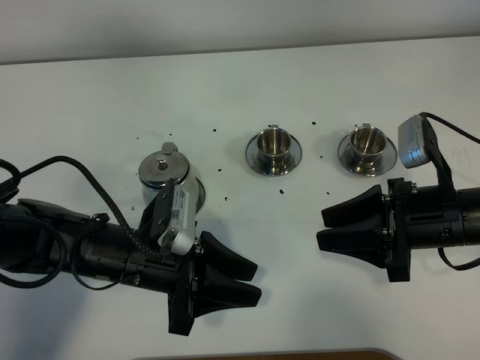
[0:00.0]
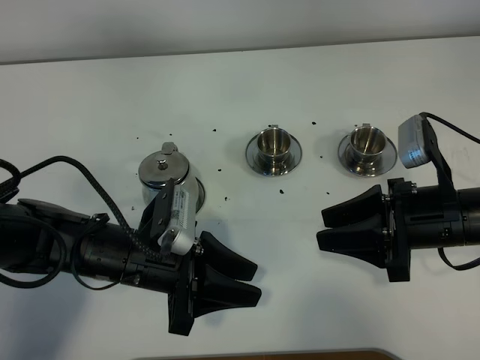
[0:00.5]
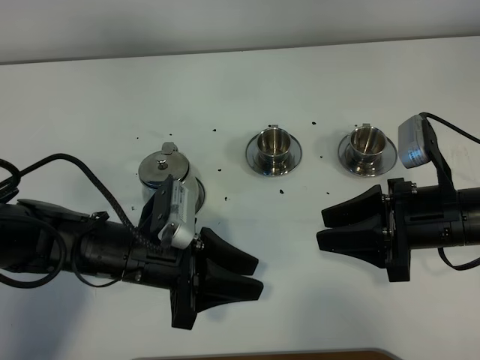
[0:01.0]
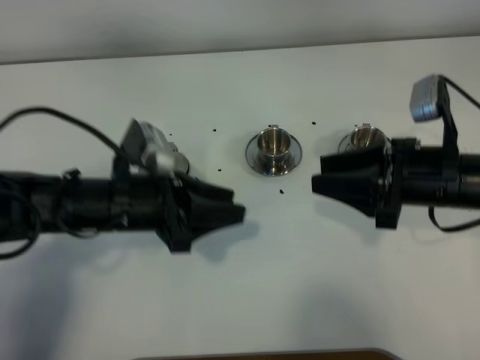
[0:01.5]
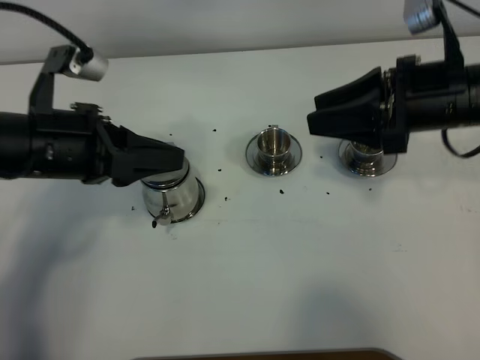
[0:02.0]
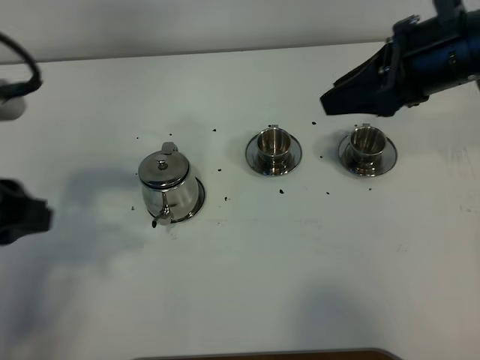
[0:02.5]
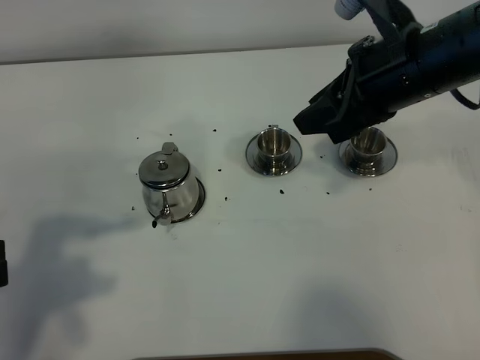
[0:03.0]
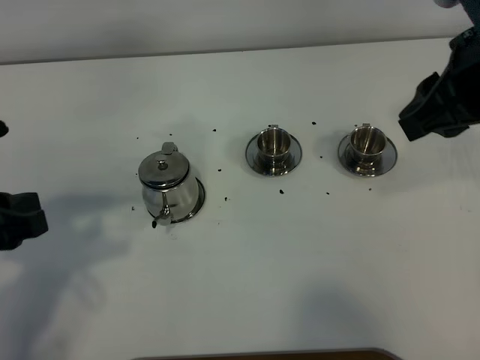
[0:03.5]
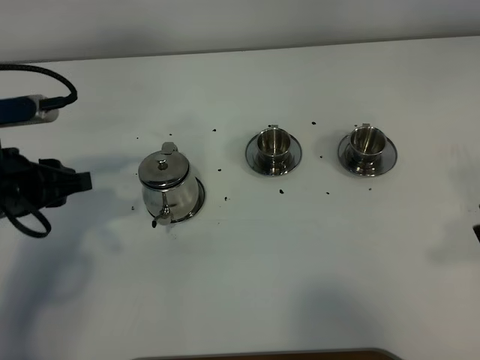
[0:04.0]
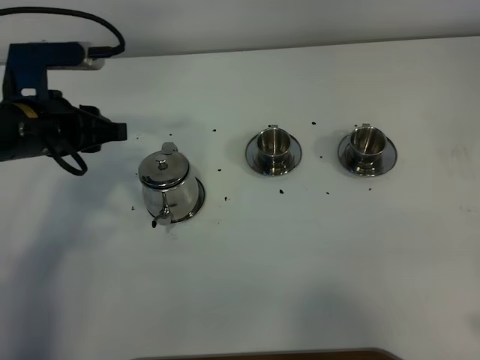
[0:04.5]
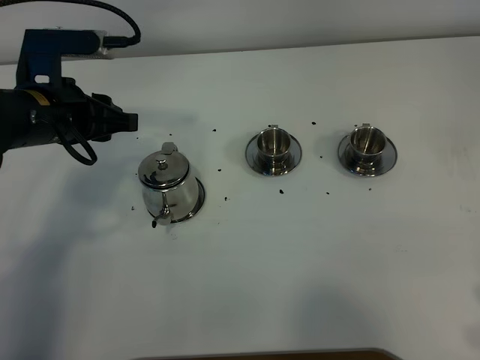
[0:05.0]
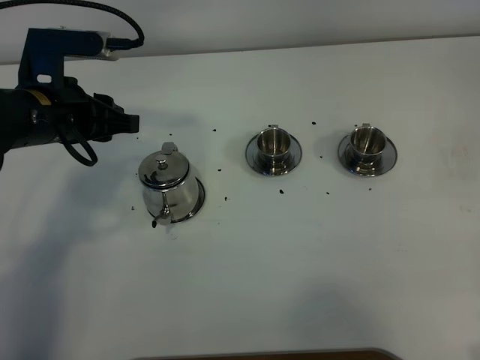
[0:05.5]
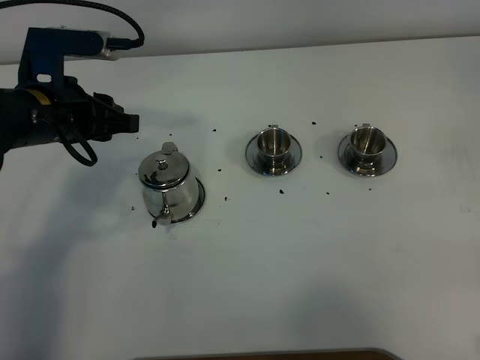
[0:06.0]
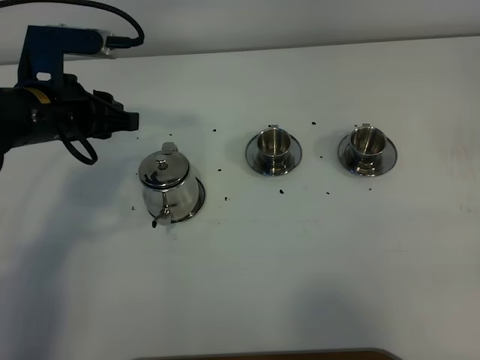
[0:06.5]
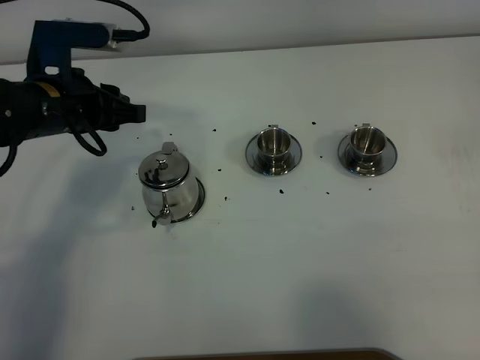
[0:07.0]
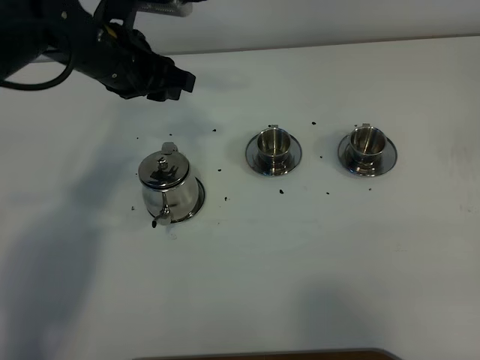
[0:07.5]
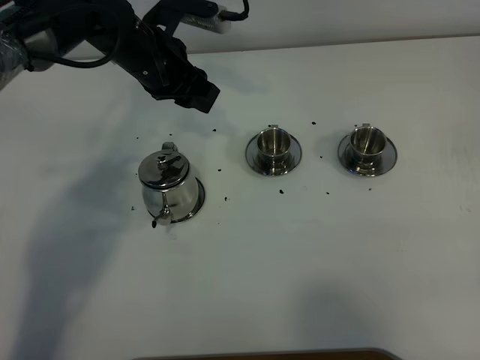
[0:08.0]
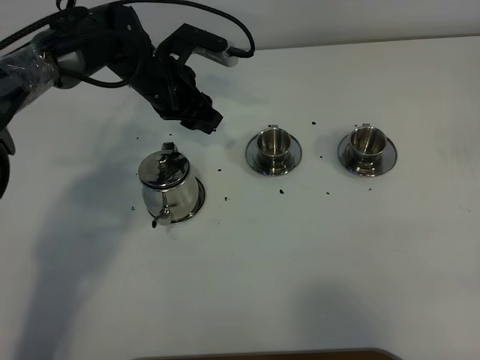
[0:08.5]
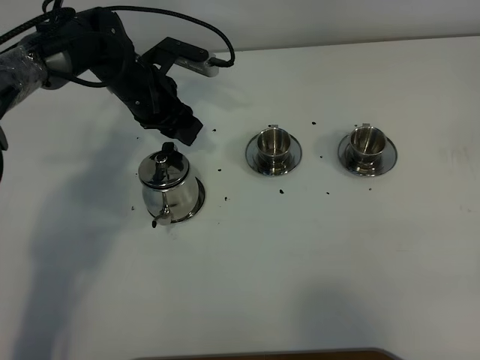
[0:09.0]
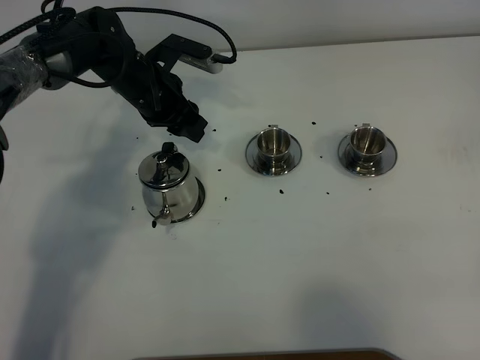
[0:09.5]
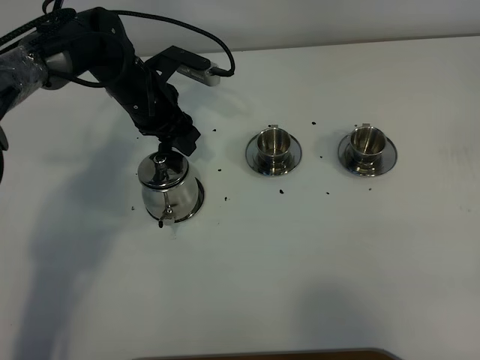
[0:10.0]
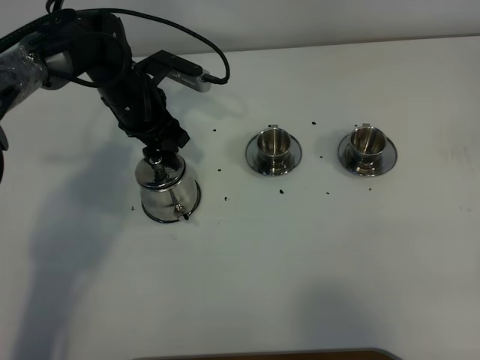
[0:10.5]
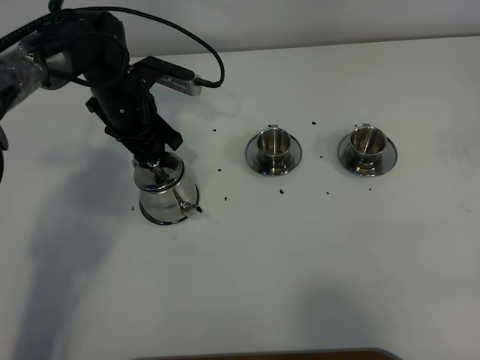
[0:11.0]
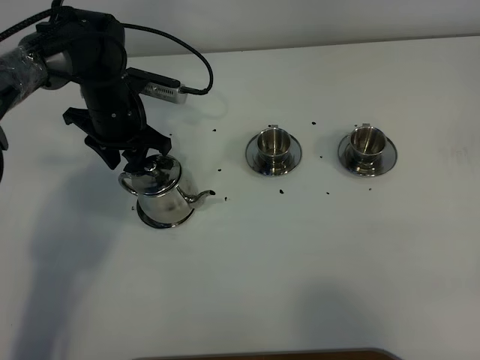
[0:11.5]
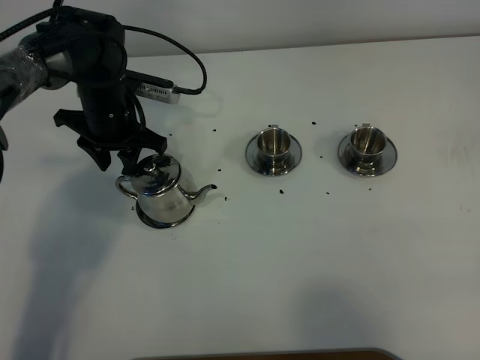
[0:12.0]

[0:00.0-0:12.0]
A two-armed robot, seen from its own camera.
Task of the whole recording: grasp the stainless steel teapot and pour the tea into the two stainless steel teacups one by one, put the stainless steel teapot back in its original place.
0:00.0 to 0:02.0: The right gripper travels upward and forward by roughly 15 cm; the left gripper is displaced upward, to the left and forward by approximately 15 cm.
0:02.0 to 0:04.0: The right gripper heads backward and to the right, covering roughly 15 cm. Meanwhile the left gripper heads to the left, covering about 5 cm, and goes backward and returns, approximately 15 cm each way.
0:04.0 to 0:06.0: The right gripper goes approximately 10 cm backward and to the right, while the left gripper travels forward by roughly 5 cm.
0:06.0 to 0:08.0: The left gripper moves forward and to the right, some 15 cm. Meanwhile the right gripper moves backward, some 5 cm.
0:08.0 to 0:10.0: The left gripper moves downward, some 5 cm.

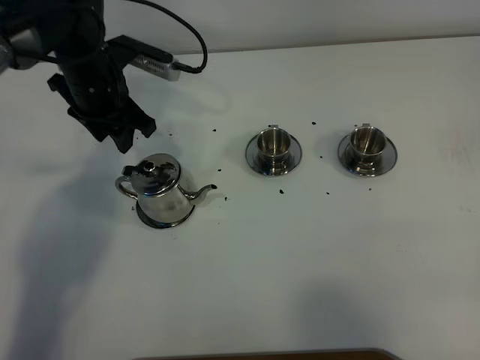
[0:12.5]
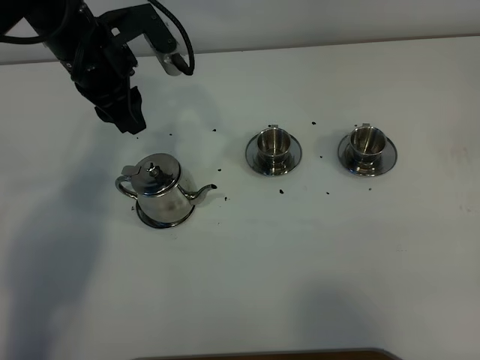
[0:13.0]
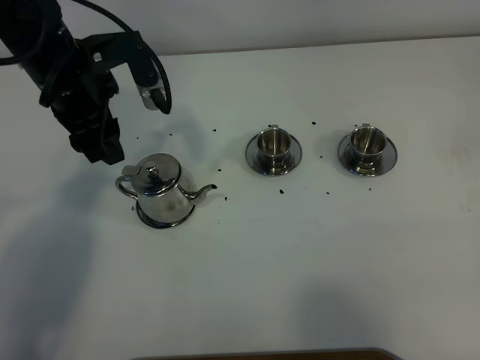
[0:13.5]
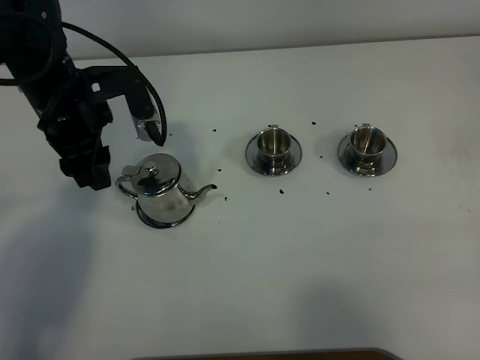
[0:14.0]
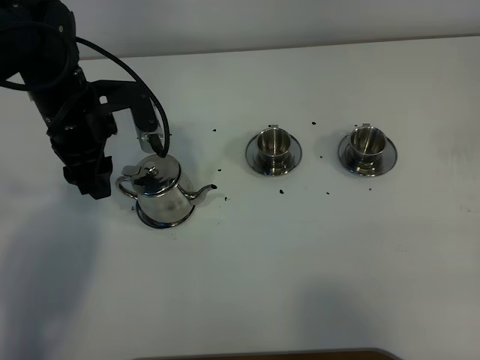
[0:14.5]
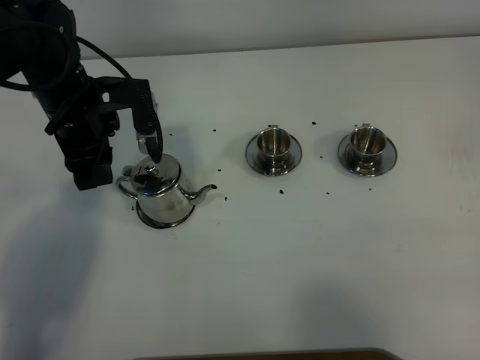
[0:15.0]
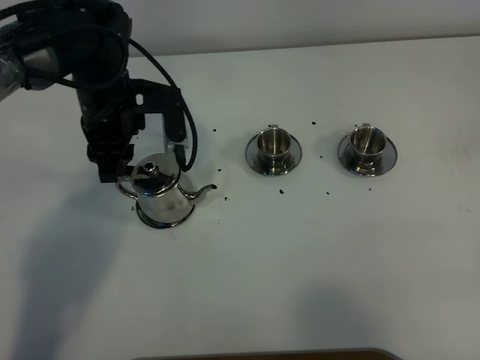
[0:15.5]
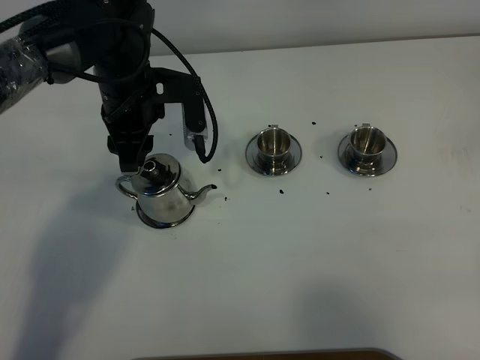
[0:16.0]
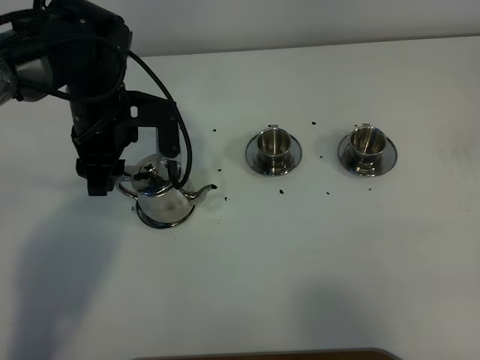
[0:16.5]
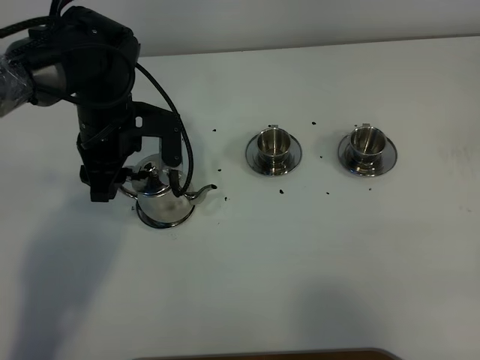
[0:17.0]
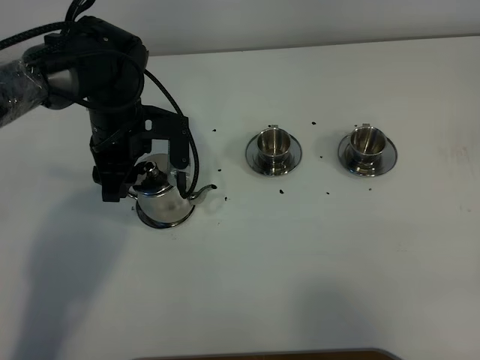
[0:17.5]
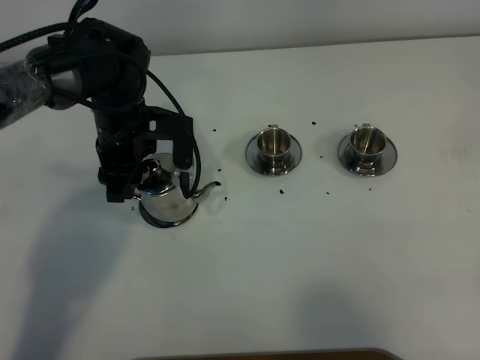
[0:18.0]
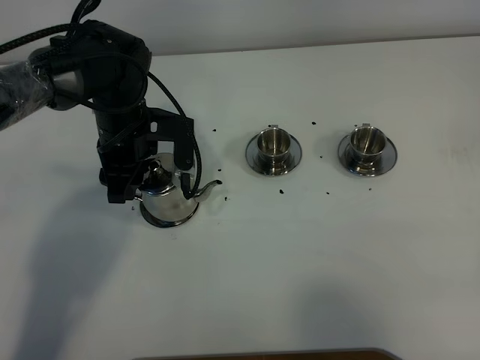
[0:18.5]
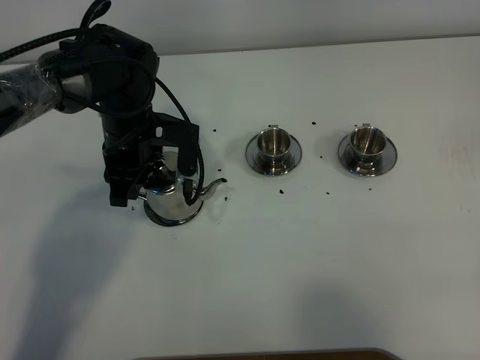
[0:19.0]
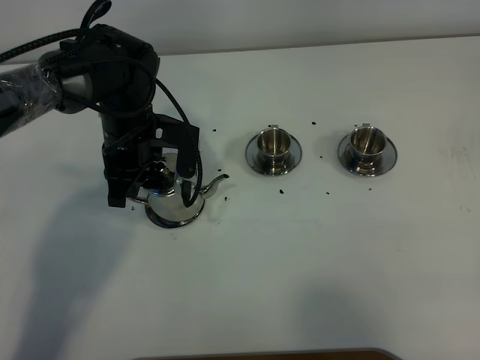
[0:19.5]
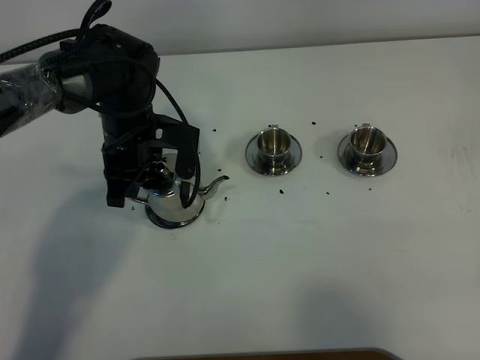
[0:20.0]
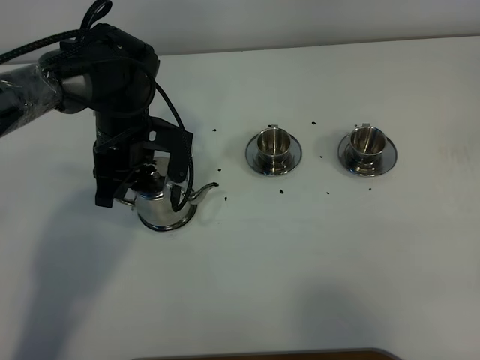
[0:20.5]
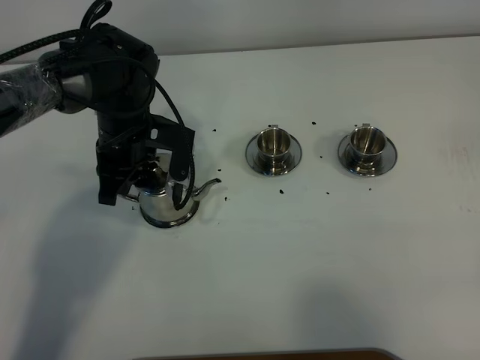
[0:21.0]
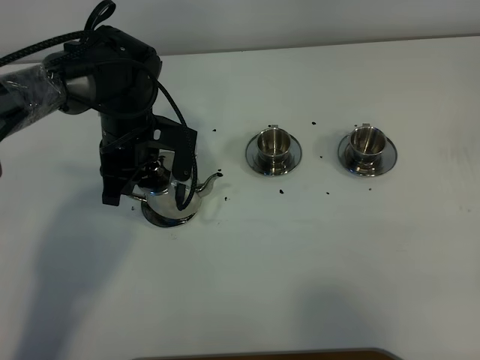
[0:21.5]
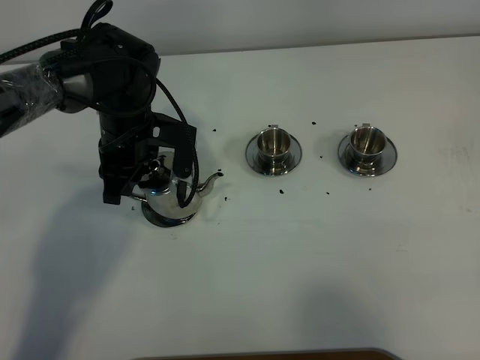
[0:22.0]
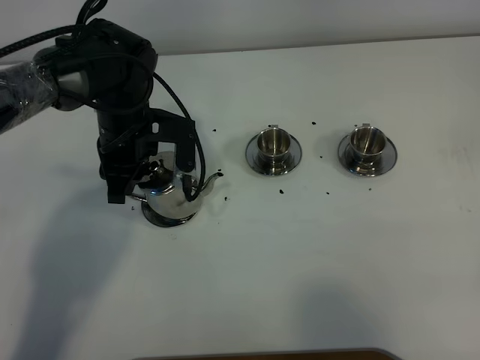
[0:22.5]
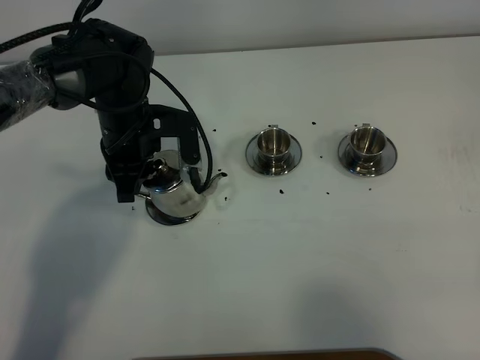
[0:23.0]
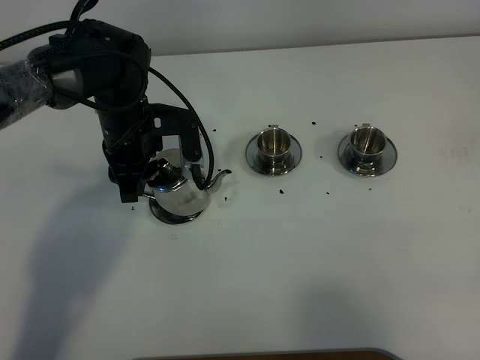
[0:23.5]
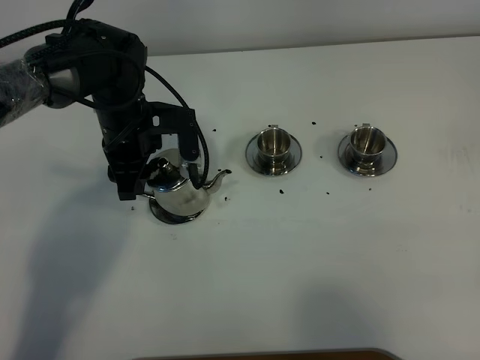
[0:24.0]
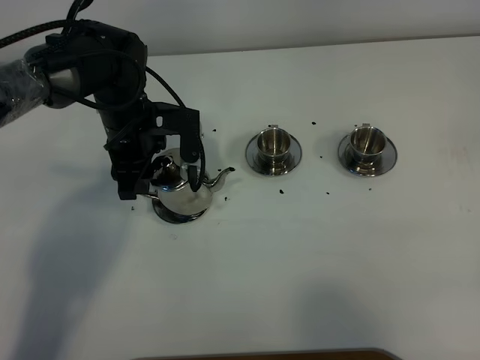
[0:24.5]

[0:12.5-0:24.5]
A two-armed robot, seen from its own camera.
Task of the whole recording: grasp the stainless steel teapot and pour the tea into the two stainless steel teacups one by one, put the stainless steel teapot back in its original place.
0:12.5 to 0:14.5: The left gripper is displaced backward by approximately 5 cm.
0:16.5 to 0:18.5: The grippers stay close to where they were, moving slightly.
0:18.5 to 0:20.5: The left gripper closes its fingers.
0:20.5 to 0:22.5: The left gripper opens its fingers.
0:22.5 to 0:24.5: The left gripper opens its fingers.

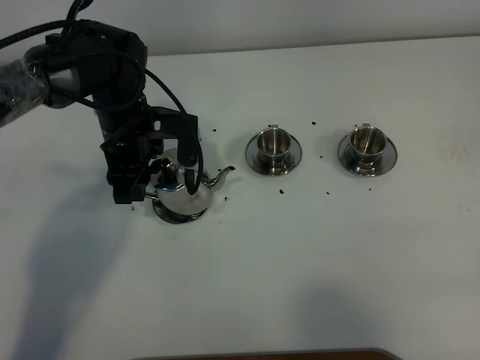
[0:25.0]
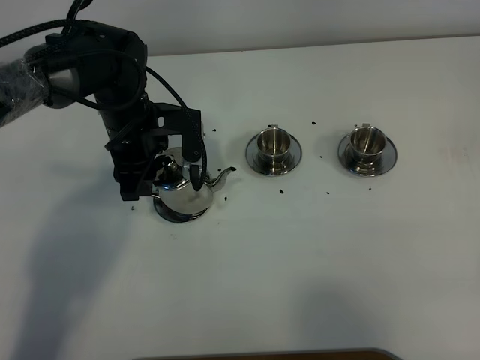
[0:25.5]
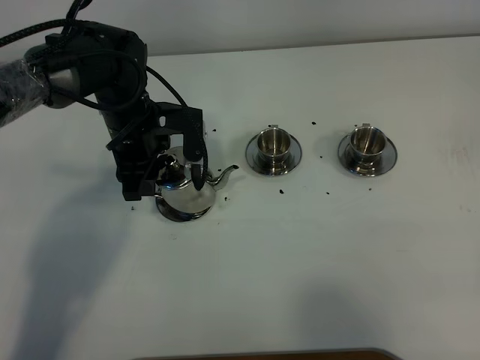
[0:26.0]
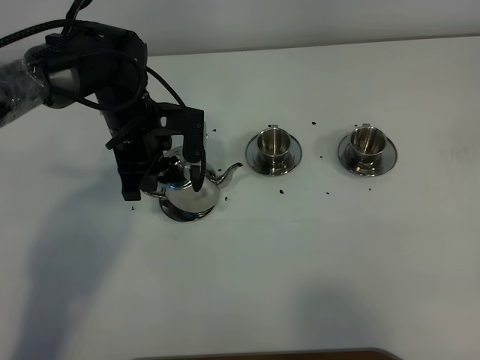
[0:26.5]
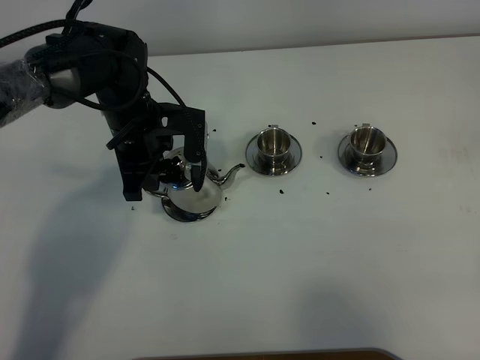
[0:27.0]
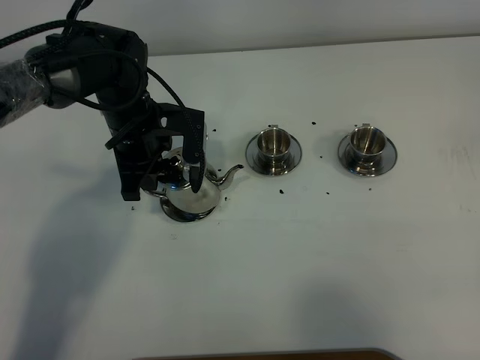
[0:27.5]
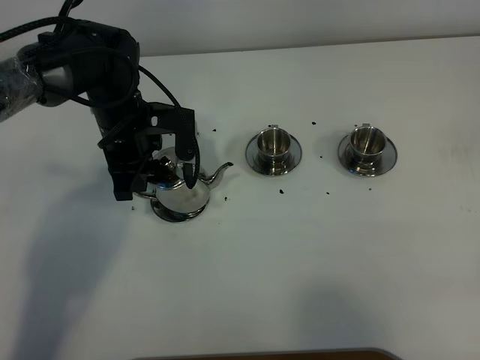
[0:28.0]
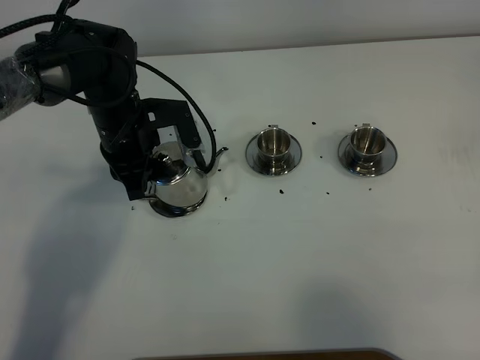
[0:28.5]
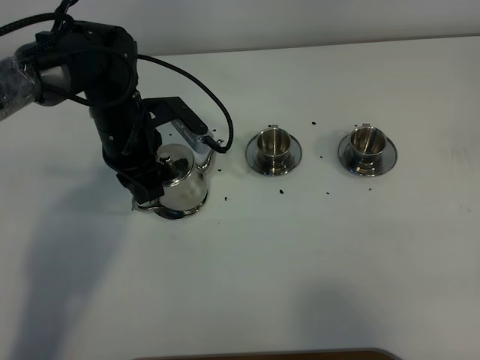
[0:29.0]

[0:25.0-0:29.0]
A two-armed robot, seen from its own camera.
Task of the whole recording: grasp the stainless steel teapot and pour the tea into the two stainless steel teacups one by one, put the stainless steel teapot back in its original place.
0:25.0 to 0:27.0: The left gripper closes its fingers.
